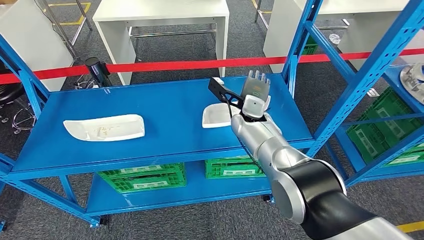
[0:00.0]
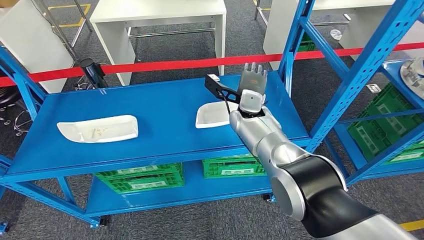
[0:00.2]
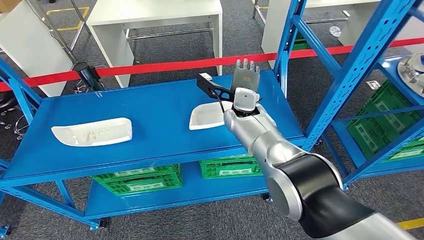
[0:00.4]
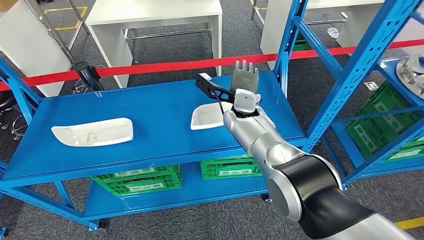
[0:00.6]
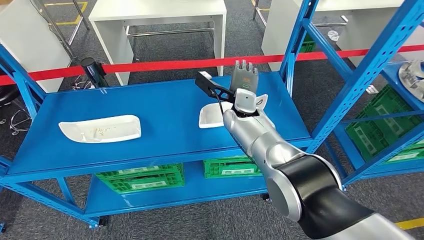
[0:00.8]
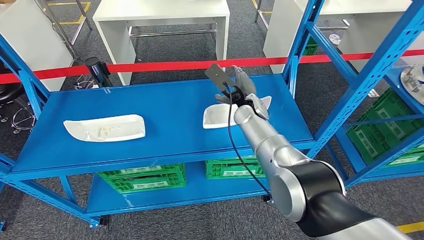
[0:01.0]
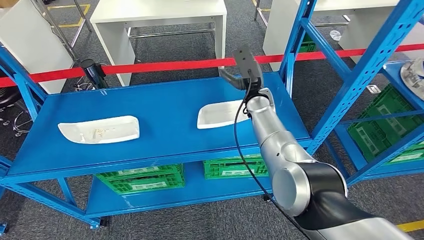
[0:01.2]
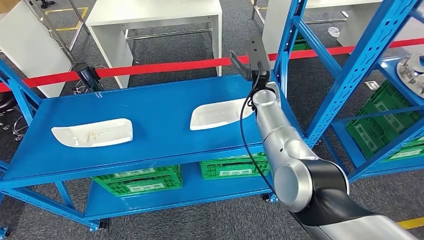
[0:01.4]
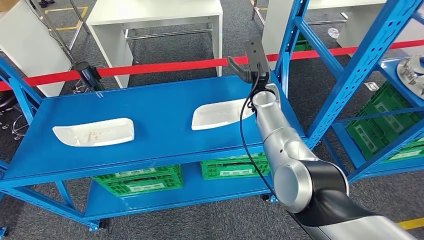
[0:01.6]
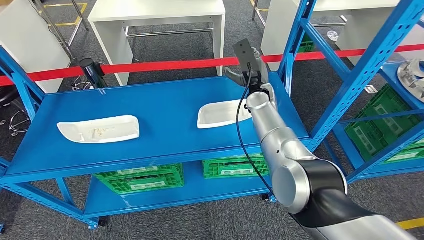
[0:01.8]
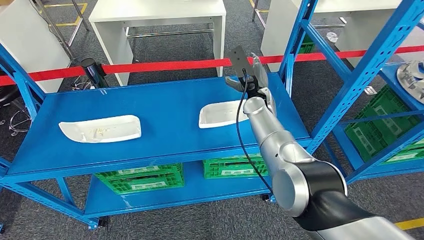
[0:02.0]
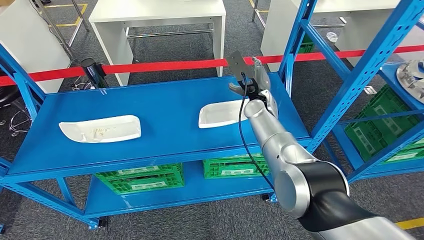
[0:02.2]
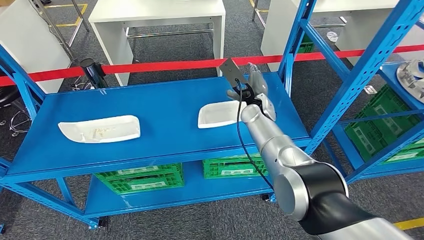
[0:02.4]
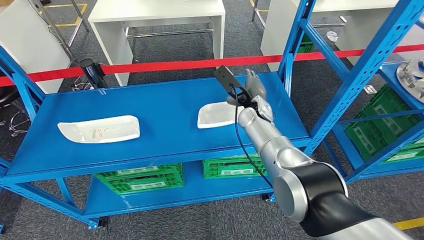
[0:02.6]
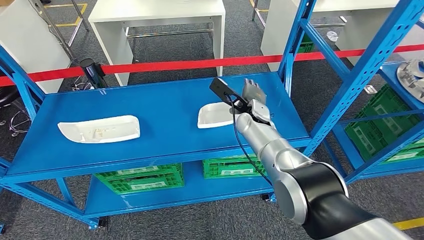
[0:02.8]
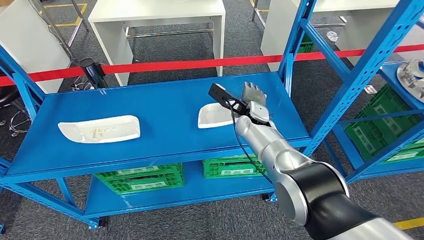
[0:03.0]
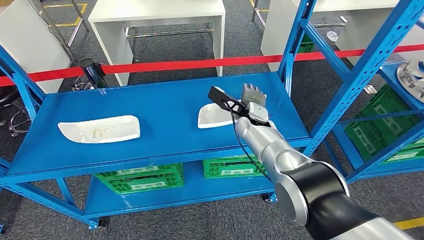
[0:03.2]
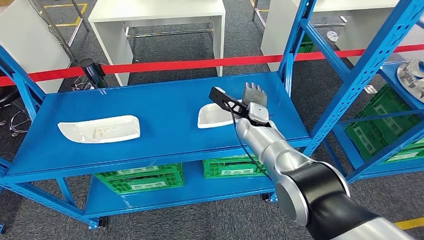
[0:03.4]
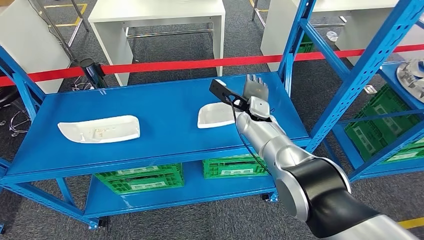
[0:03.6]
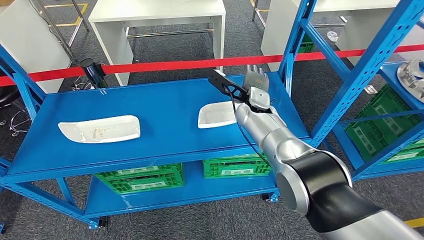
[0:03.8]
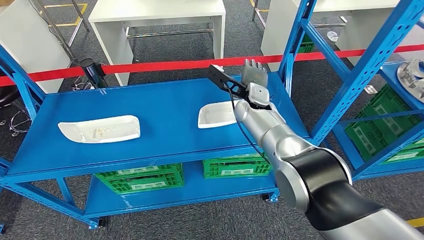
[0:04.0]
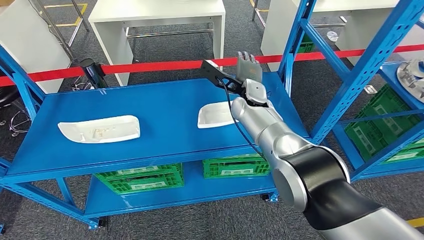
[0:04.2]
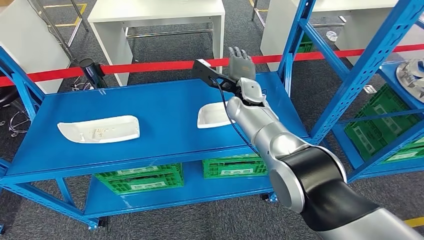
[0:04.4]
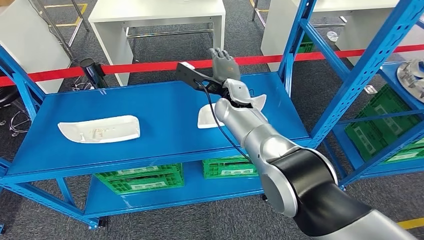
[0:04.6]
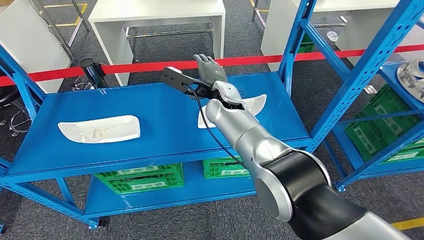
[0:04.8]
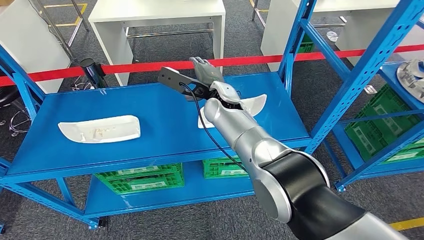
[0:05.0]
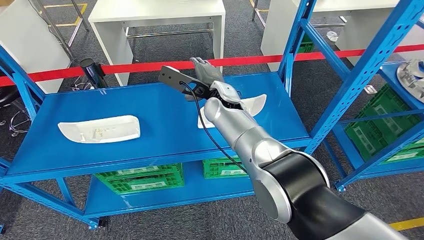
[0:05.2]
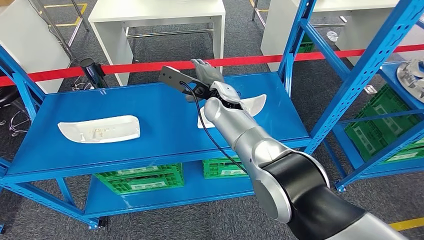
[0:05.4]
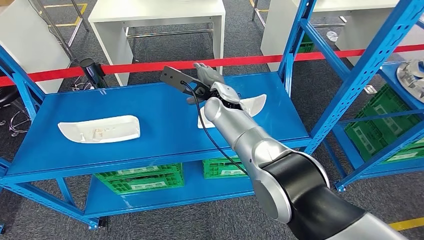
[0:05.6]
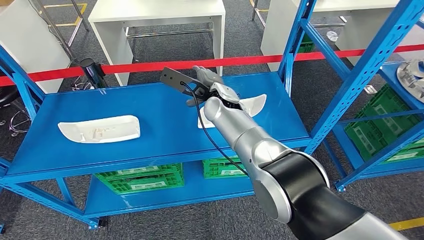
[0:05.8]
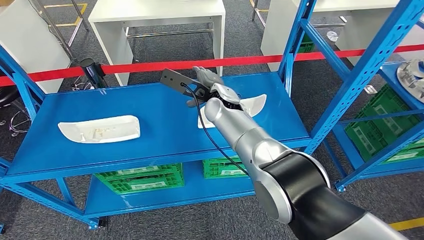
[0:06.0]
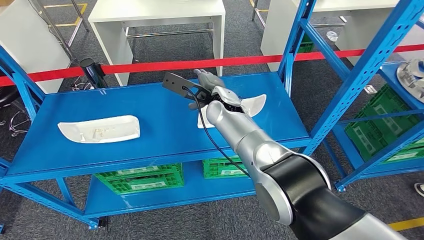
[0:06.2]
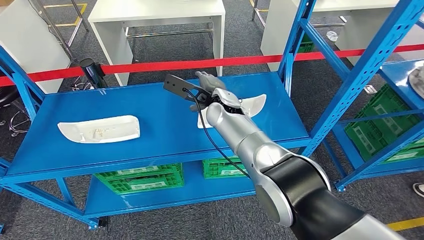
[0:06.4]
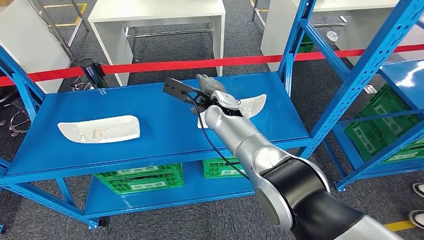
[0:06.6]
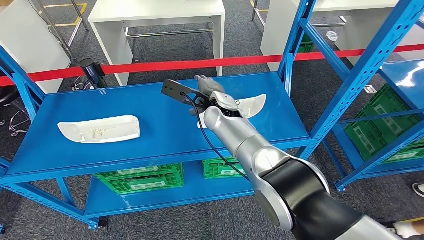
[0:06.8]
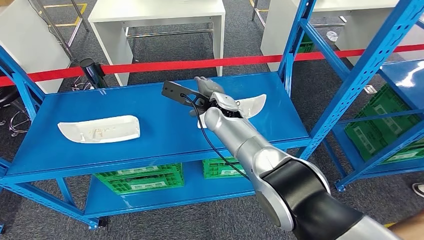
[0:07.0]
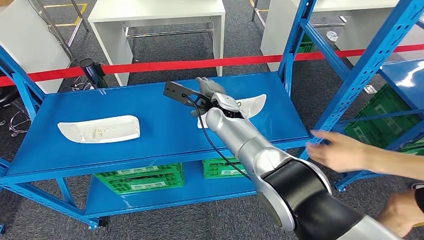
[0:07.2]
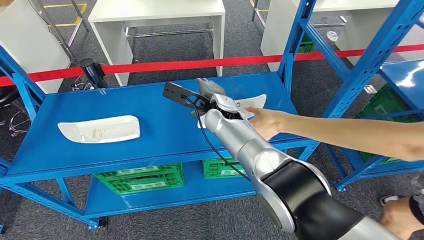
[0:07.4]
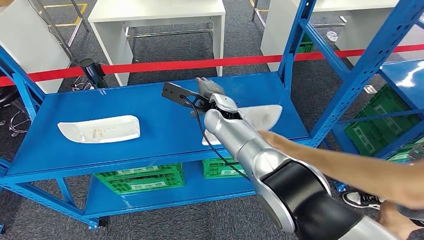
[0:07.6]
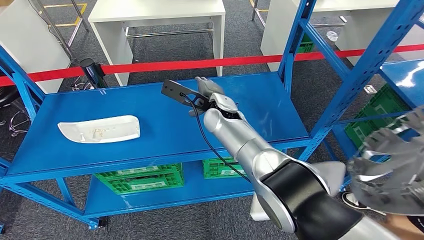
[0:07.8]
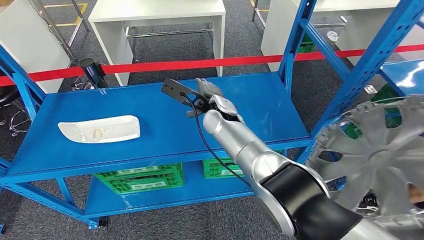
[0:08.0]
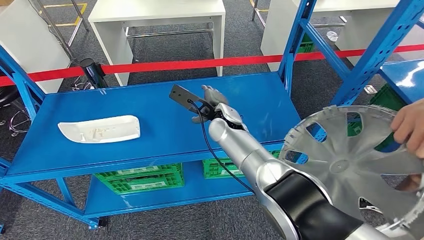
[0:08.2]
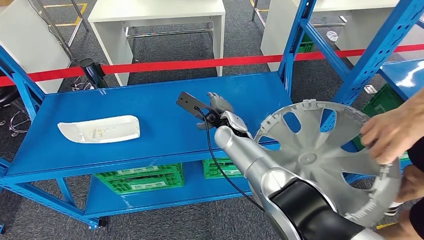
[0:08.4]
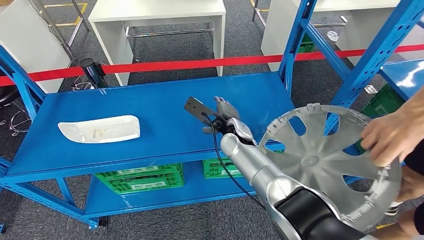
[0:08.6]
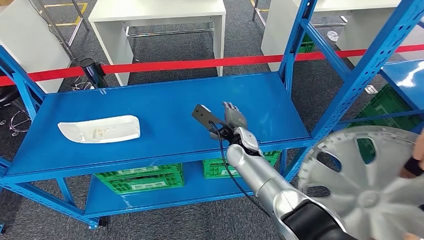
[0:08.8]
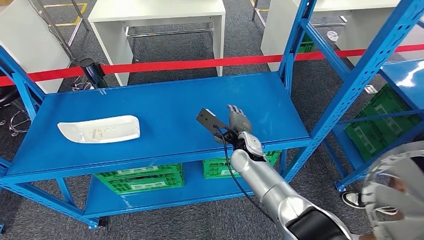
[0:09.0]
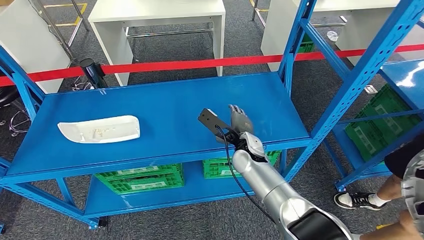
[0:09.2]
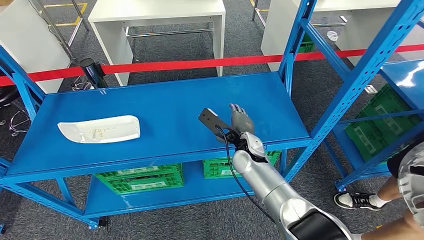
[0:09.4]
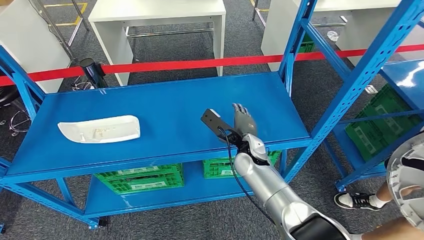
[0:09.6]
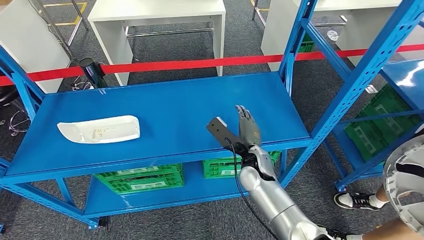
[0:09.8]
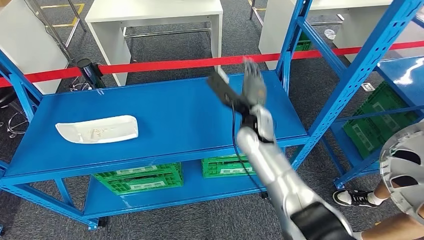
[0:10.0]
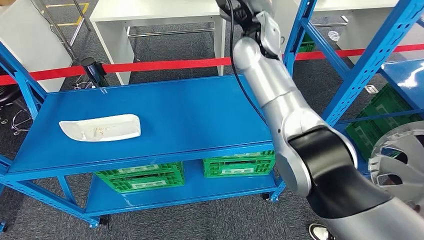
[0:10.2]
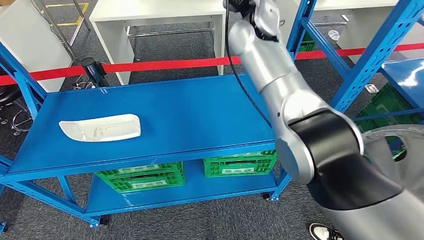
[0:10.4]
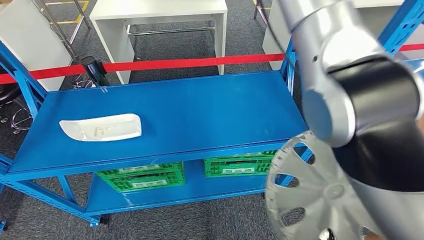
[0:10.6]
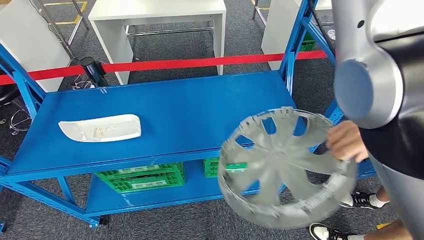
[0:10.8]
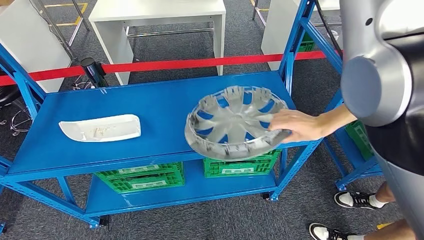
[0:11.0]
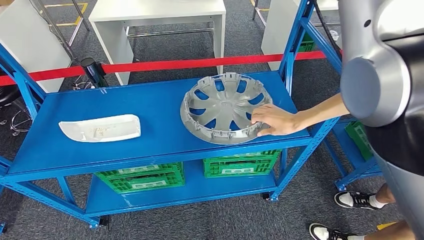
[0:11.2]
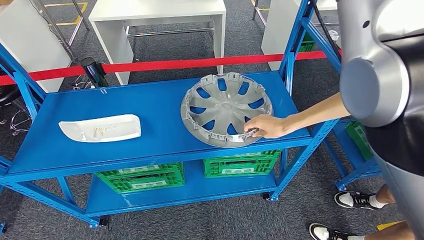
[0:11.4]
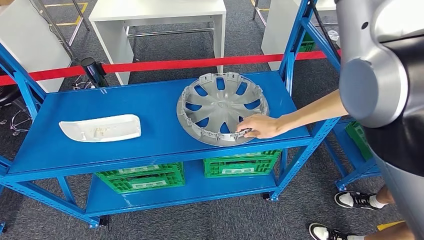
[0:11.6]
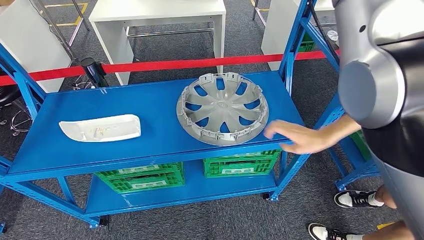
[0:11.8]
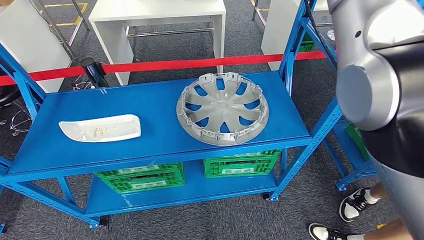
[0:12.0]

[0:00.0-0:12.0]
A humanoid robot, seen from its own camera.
0:03.0 to 0:04.4: The right hand moves upward, about 5 cm.
0:04.4 to 0:06.0: The right hand is displaced to the left by some 5 cm.
0:06.0 to 0:07.6: The hands move only a little.
0:07.6 to 0:09.0: The right hand shifts about 15 cm downward and backward.

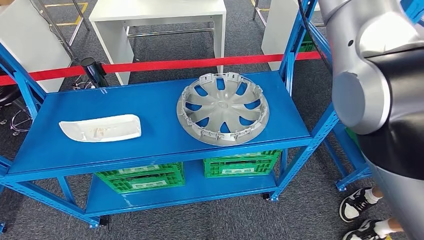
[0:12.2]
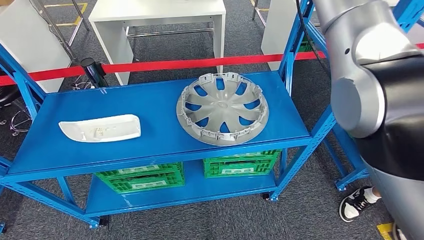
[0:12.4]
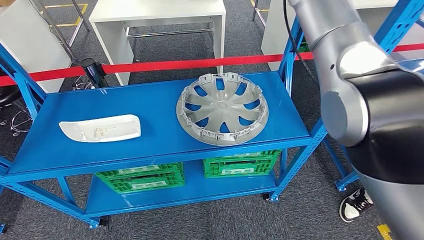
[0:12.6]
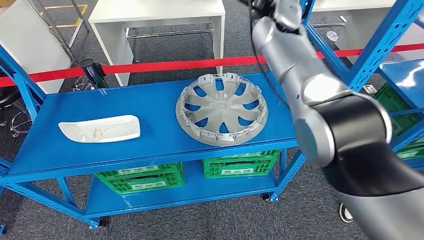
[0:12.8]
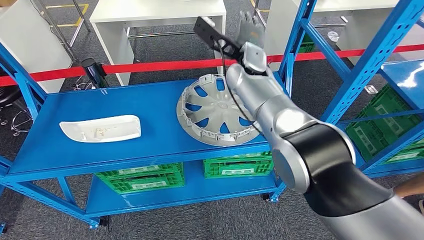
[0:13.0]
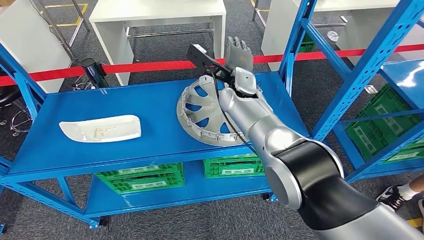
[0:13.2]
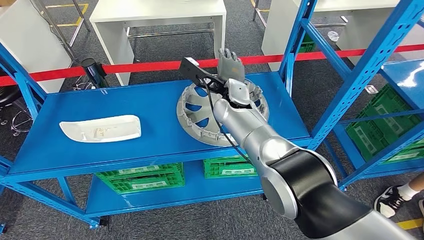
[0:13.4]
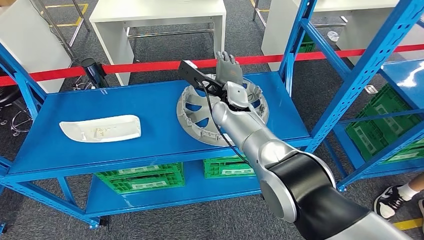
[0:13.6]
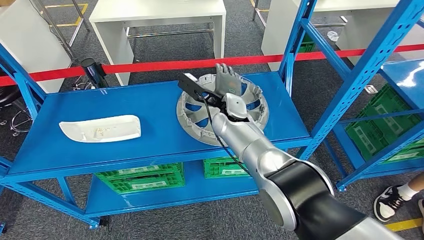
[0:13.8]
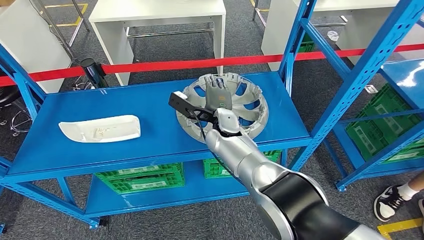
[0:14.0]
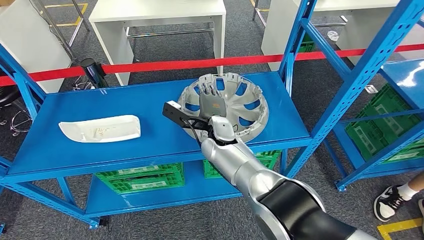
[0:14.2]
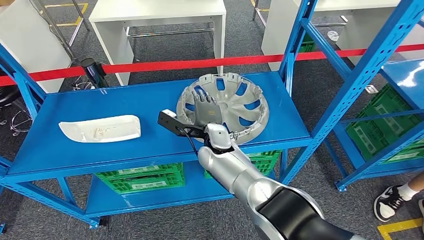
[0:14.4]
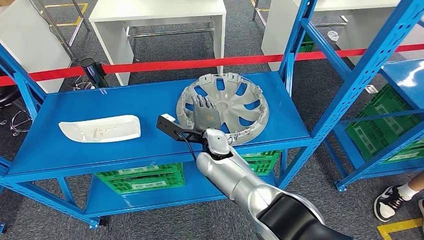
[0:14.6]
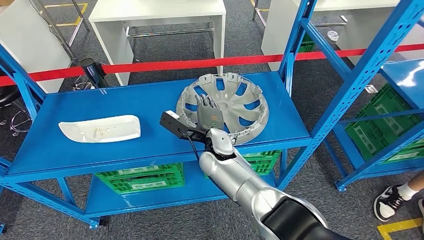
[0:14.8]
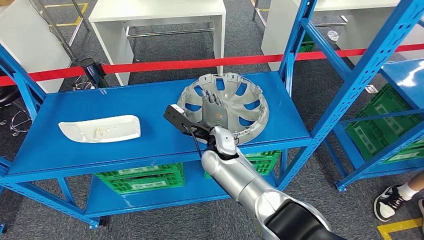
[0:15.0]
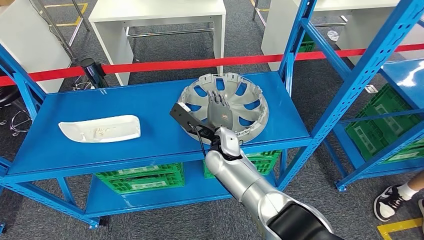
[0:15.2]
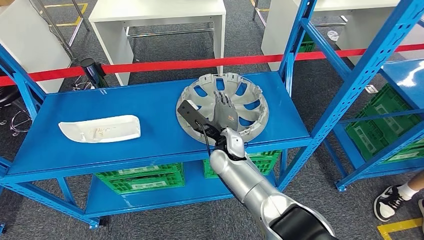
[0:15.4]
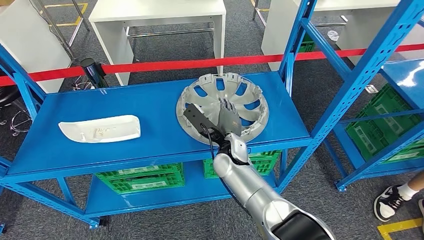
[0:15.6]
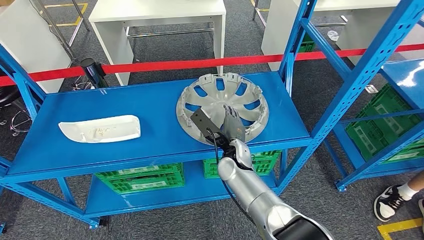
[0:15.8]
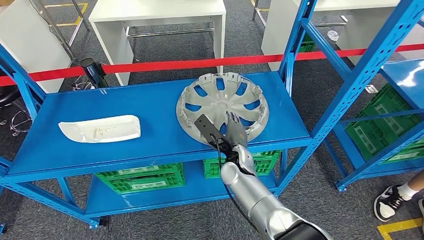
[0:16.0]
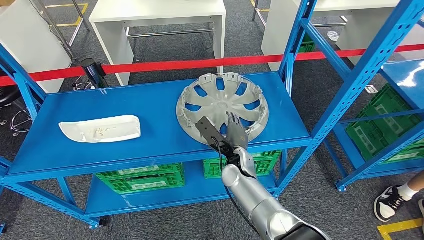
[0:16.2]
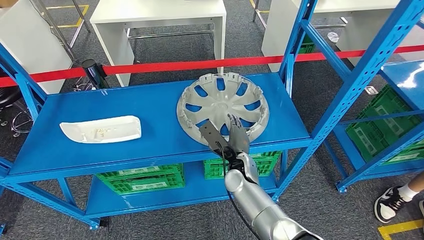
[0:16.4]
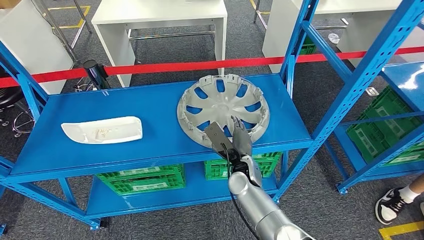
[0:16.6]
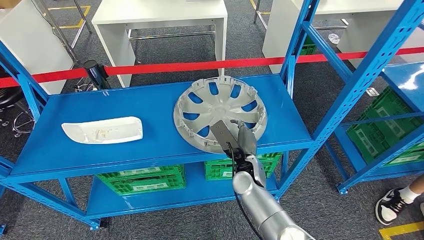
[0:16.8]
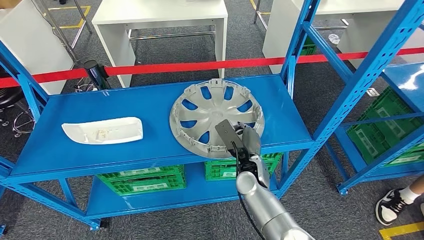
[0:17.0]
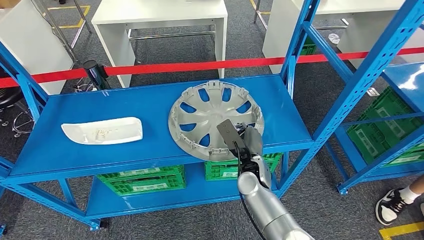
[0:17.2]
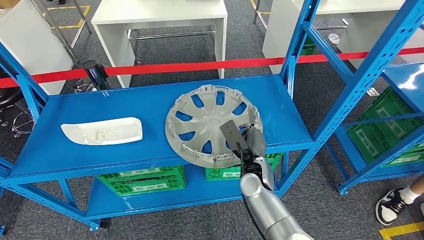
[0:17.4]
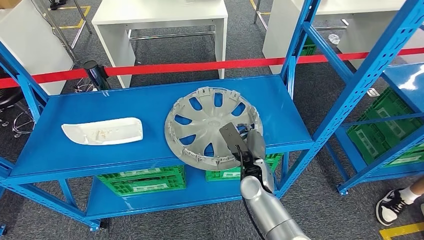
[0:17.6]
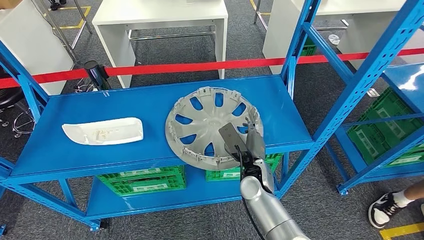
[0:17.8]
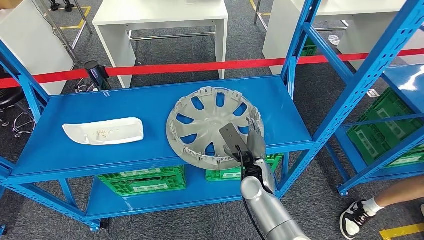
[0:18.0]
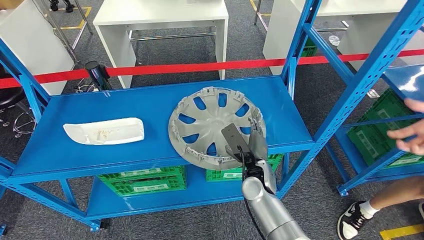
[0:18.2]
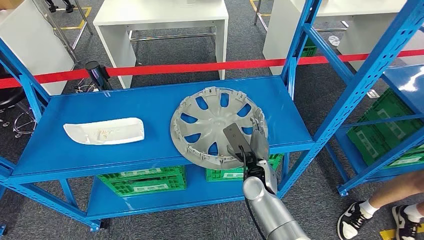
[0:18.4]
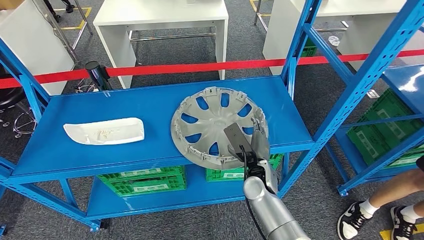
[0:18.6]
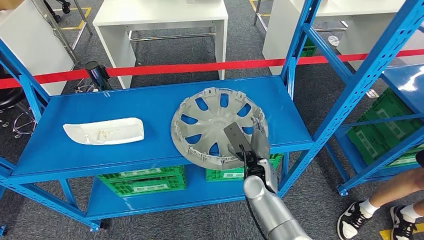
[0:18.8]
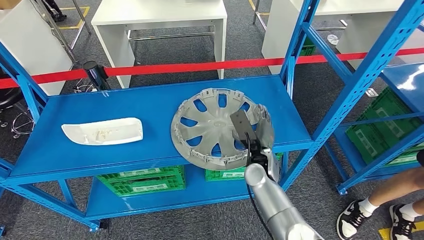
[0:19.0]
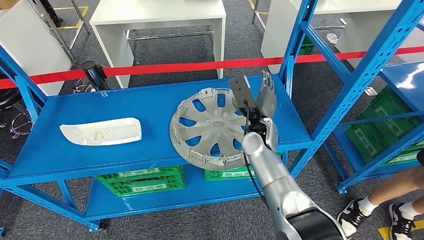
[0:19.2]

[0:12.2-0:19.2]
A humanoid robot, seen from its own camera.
0:13.6 to 0:15.0: The right hand is displaced backward, downward and to the left by approximately 15 cm.
0:15.0 to 0:16.4: The right hand travels downward and backward by about 10 cm.
